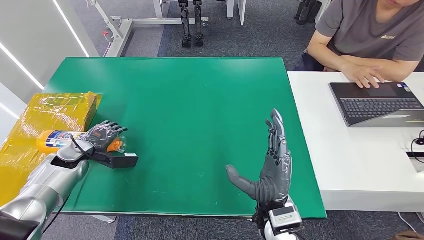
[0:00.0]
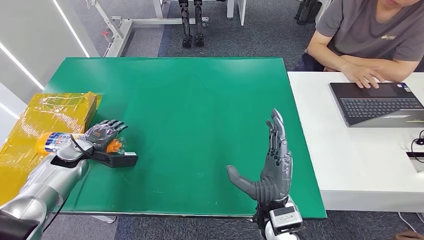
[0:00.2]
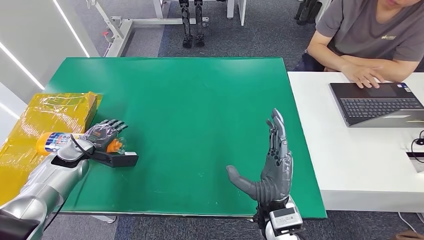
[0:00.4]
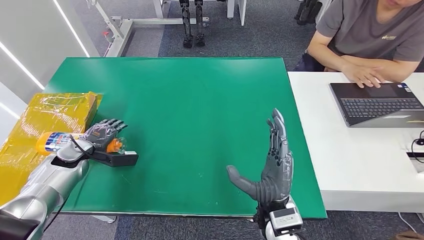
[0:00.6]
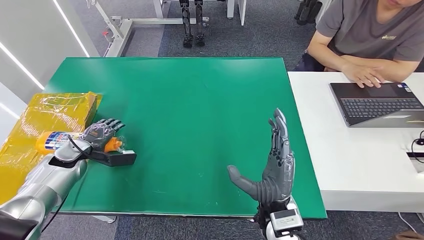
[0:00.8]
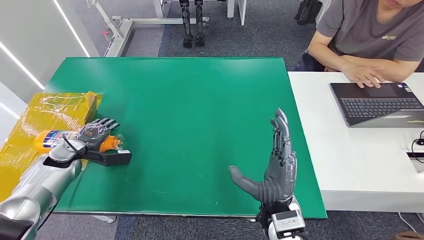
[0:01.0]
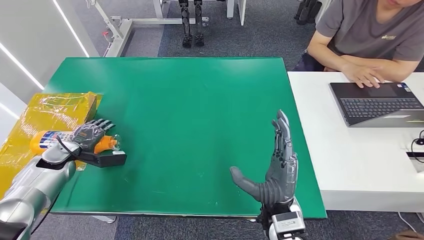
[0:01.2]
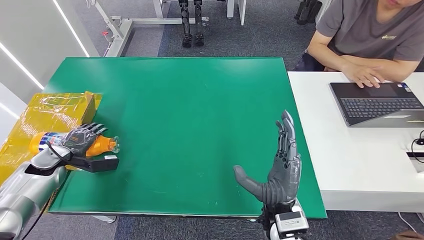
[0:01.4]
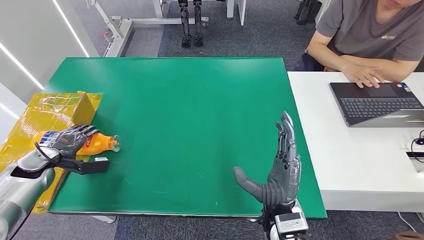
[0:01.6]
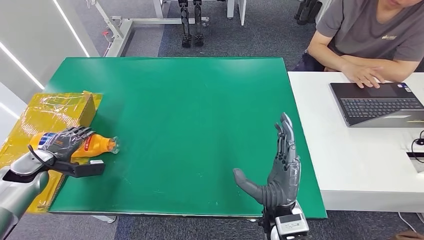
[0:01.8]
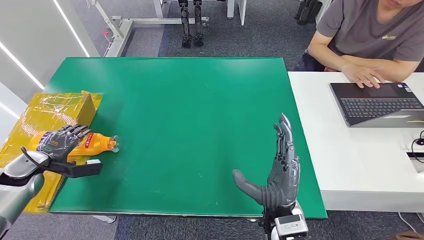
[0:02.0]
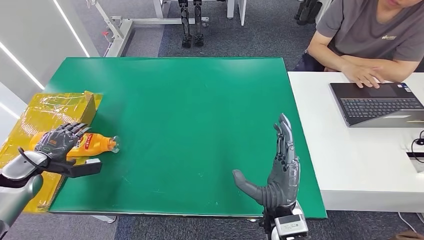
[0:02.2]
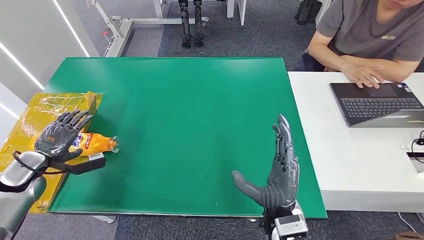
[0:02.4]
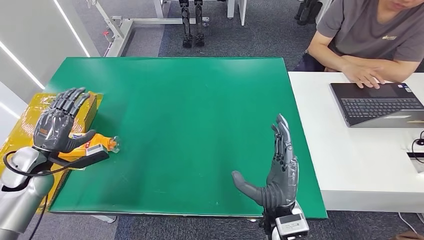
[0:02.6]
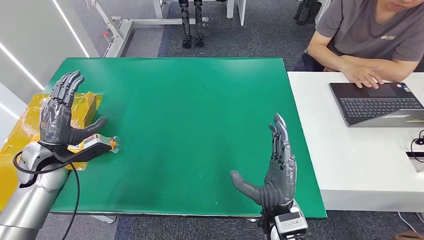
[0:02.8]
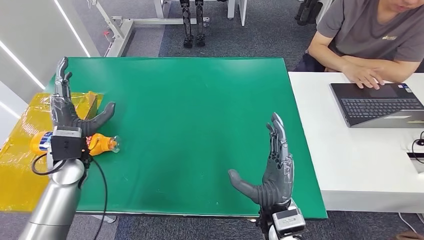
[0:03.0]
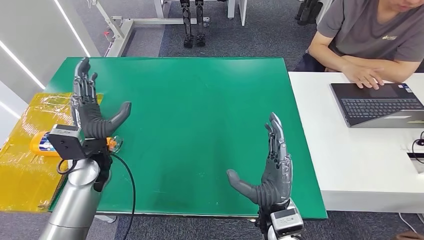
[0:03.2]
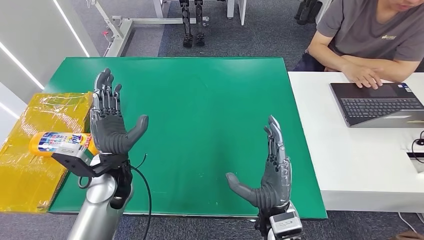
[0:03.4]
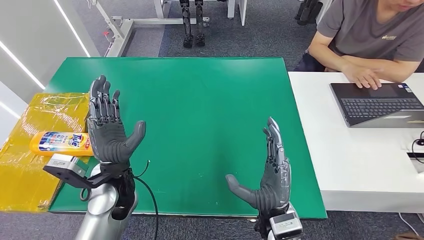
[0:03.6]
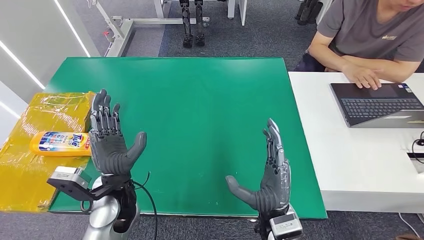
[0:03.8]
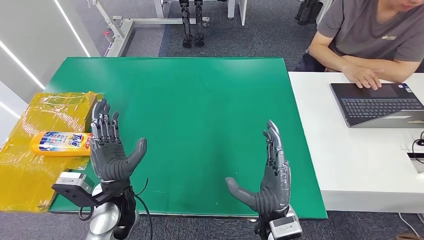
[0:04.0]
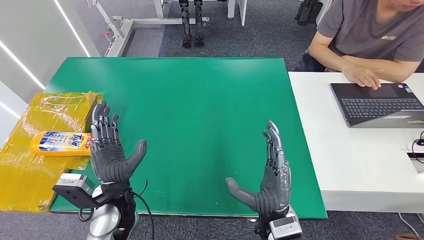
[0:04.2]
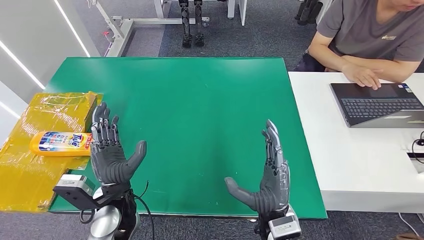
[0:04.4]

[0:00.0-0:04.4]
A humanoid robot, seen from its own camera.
Step, 0:00.0 to 0:04.4: Turn the bottle to the front side.
0:00.0 to 0:01.4: The left hand shifts roughly 5 cm to the left.
0:01.4 to 0:03.0: The left hand travels to the right and upward by roughly 15 cm.
0:03.0 to 0:04.4: The left hand goes about 15 cm to the right and backward.
